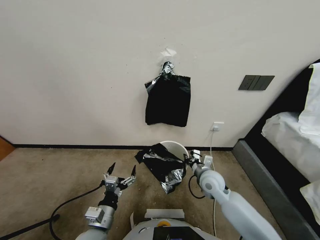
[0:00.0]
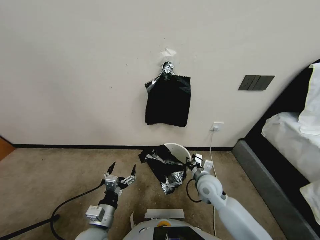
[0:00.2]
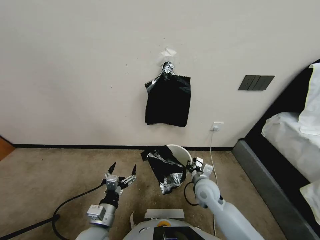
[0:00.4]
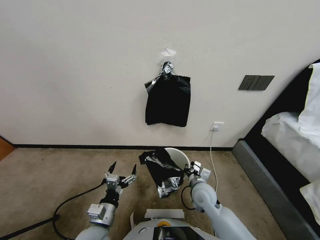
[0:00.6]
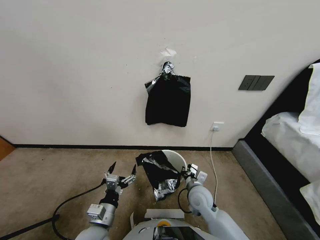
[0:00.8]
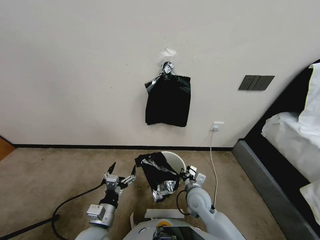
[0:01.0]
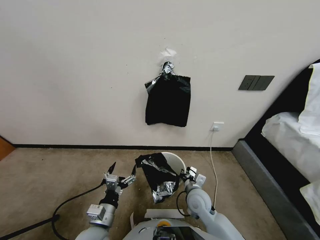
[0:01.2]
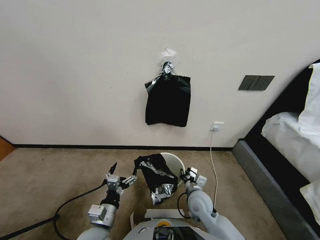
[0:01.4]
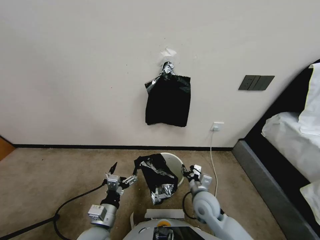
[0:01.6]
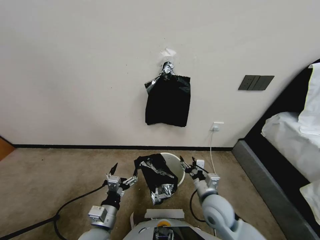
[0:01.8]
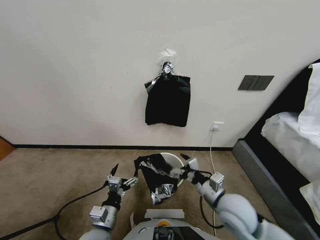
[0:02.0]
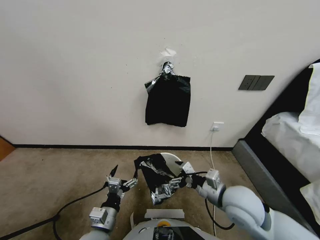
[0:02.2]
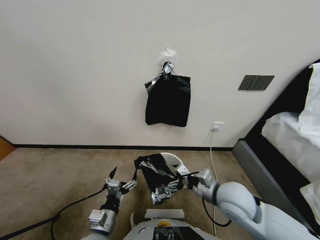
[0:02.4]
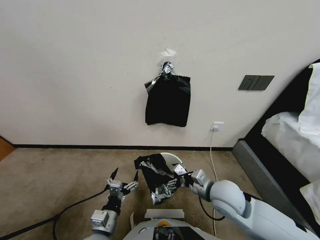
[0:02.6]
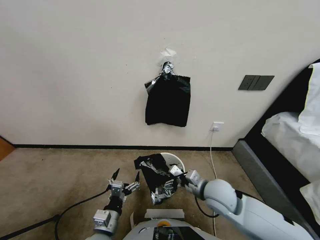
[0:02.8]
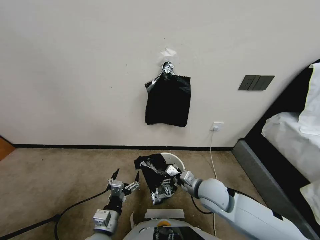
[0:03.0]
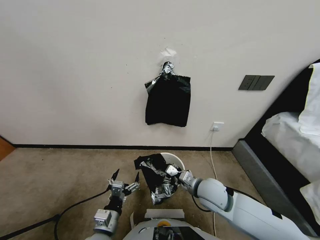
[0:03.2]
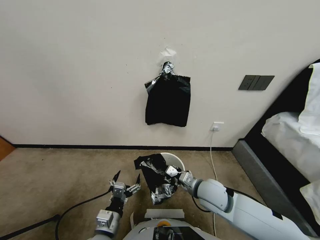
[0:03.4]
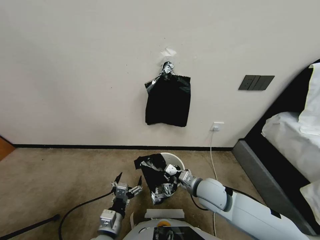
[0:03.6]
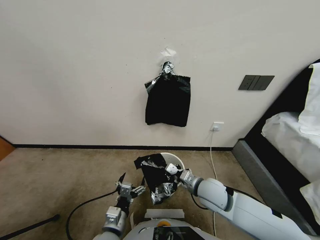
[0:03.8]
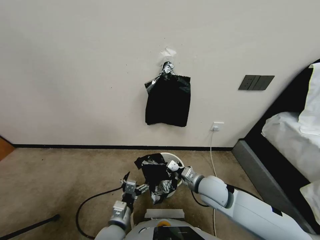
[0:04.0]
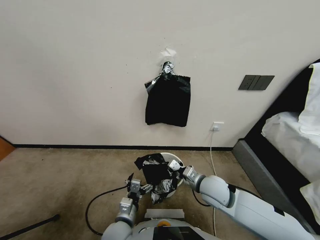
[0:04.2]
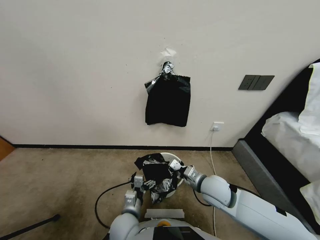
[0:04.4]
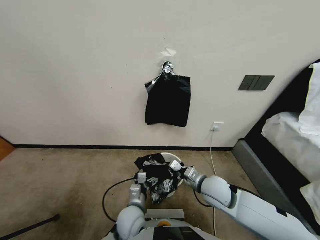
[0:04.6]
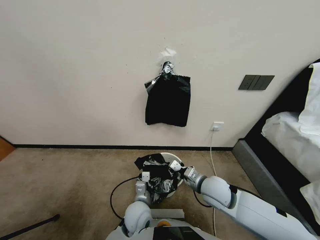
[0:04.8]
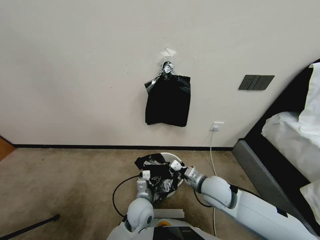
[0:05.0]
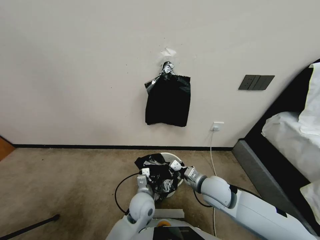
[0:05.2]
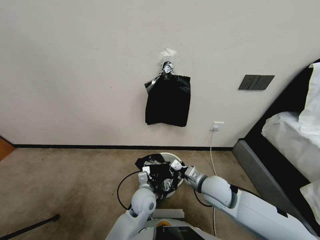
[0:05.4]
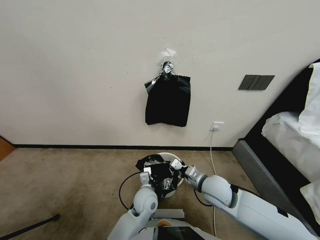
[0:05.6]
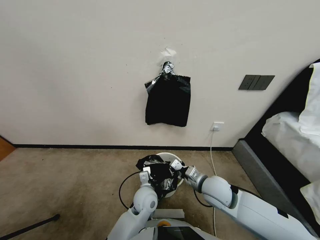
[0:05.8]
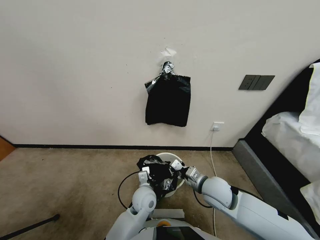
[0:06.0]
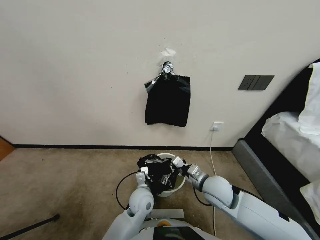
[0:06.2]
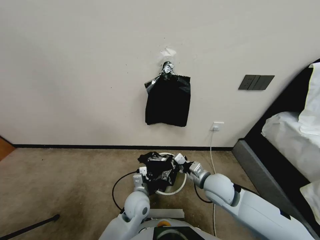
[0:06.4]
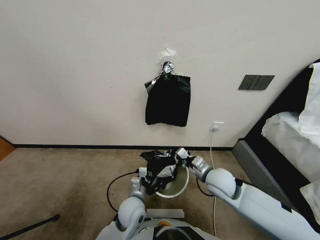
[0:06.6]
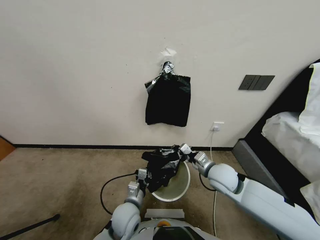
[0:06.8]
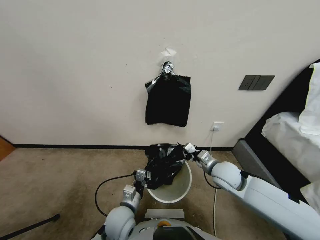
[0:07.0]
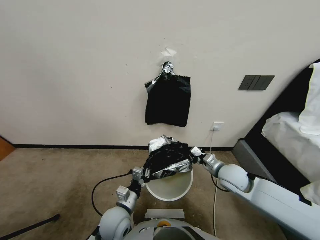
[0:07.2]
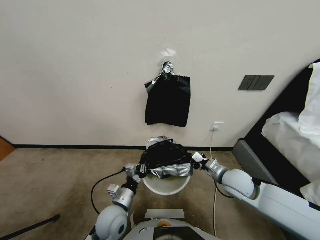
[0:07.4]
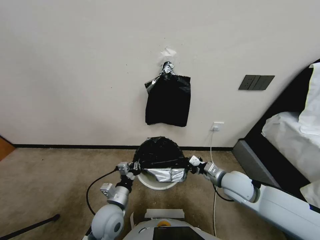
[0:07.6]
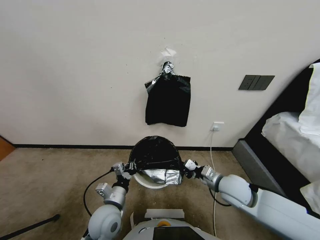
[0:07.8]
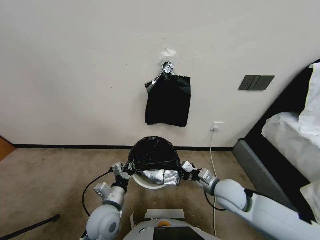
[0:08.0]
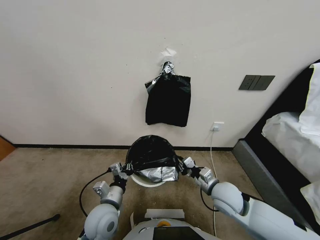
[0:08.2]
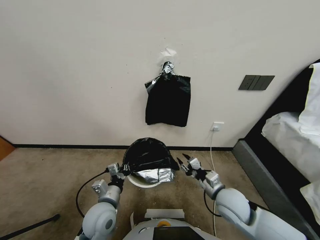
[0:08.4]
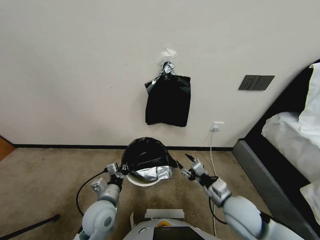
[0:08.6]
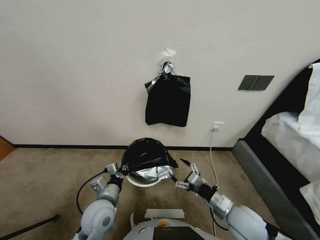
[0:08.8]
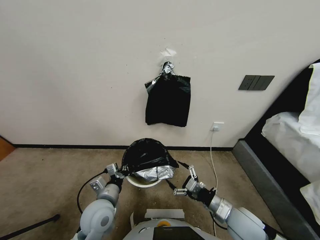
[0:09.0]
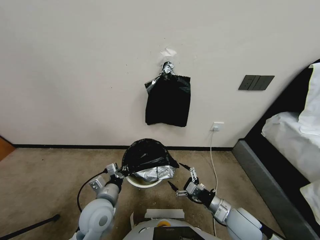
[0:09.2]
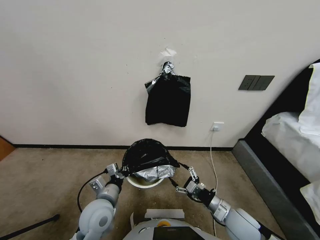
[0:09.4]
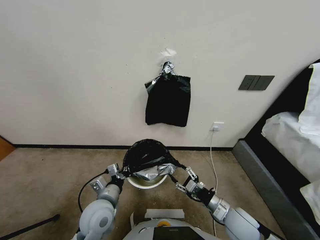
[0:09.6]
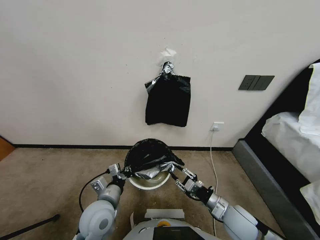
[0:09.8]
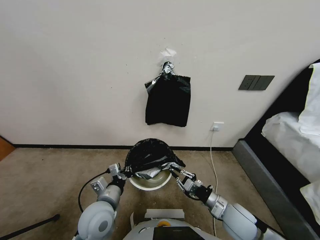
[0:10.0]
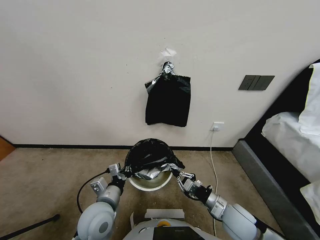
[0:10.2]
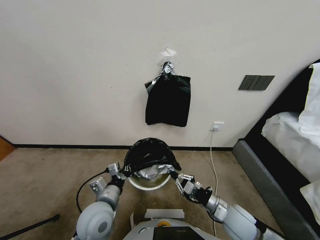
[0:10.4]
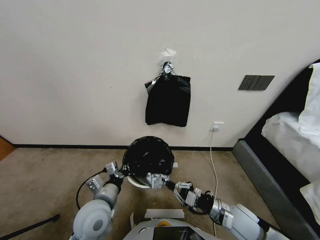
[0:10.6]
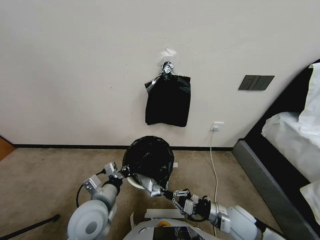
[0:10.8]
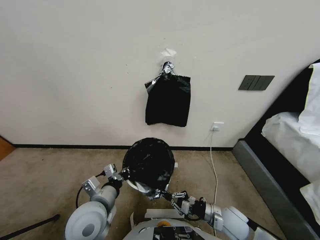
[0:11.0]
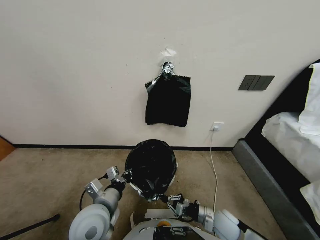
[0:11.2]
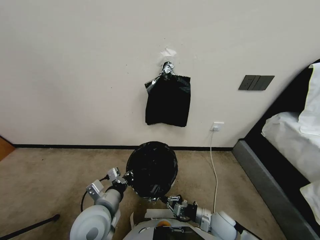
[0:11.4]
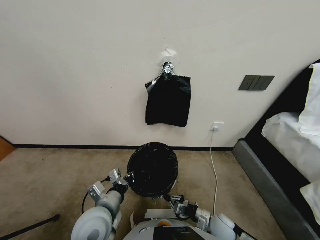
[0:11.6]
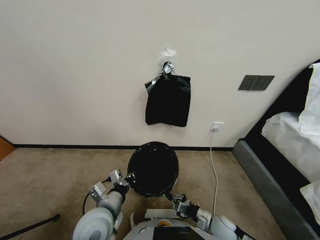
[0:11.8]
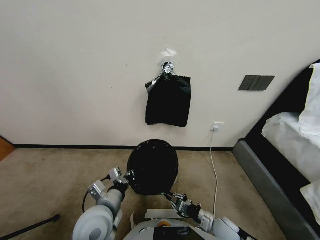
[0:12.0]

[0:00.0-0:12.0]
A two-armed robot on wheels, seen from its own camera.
Task of the whole recording: Place a trash bag onto the trash bin.
0:00.0 to 0:01.6: The right gripper shifts about 10 cm backward, and opens.
0:01.6 to 0:03.0: The right gripper moves upward, some 5 cm.
0:03.0 to 0:04.4: The left gripper is displaced to the right and forward by about 10 cm. Meanwhile the right gripper closes.
0:04.4 to 0:06.0: The left gripper goes approximately 5 cm forward, and closes up.
0:06.0 to 0:07.6: The right gripper heads to the right, covering approximately 5 cm. Meanwhile the left gripper travels to the left and backward by about 15 cm.
0:07.6 to 0:09.0: The right gripper moves backward and downward, some 10 cm, and opens its fingers.
0:09.0 to 0:10.4: The right gripper closes up.
0:10.4 to 0:12.0: The right gripper shifts about 10 cm downward.

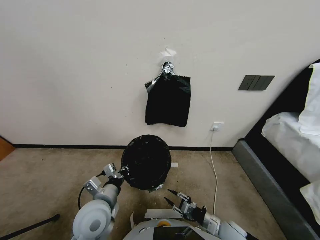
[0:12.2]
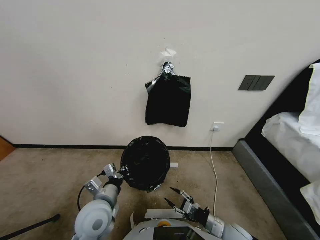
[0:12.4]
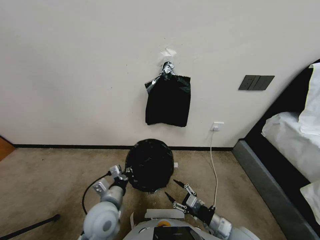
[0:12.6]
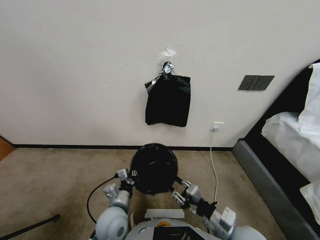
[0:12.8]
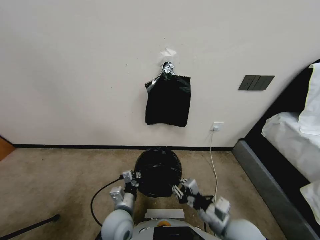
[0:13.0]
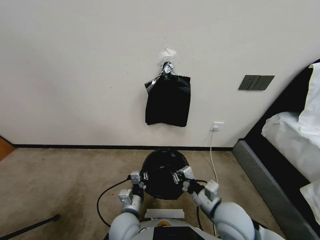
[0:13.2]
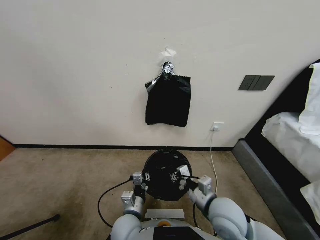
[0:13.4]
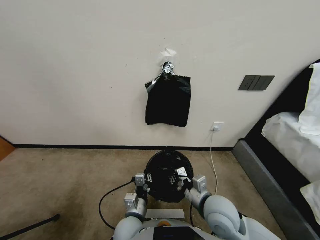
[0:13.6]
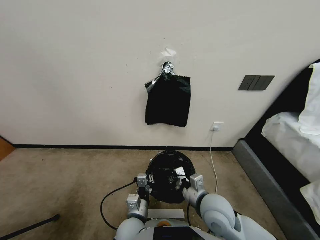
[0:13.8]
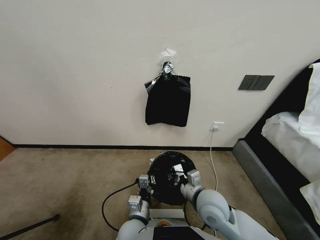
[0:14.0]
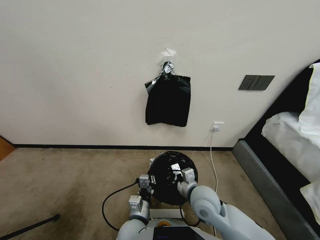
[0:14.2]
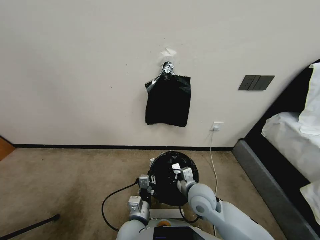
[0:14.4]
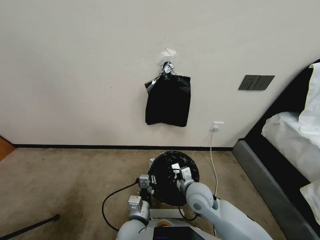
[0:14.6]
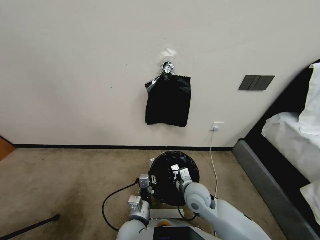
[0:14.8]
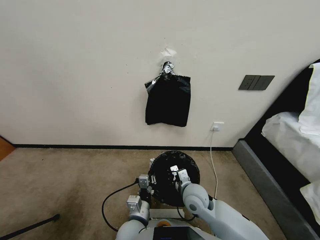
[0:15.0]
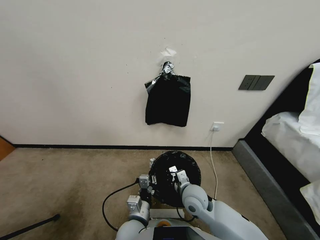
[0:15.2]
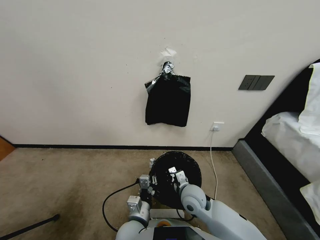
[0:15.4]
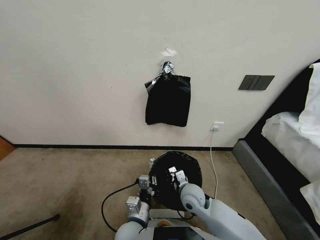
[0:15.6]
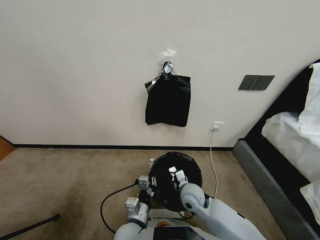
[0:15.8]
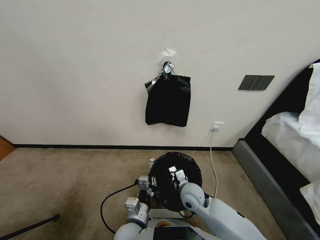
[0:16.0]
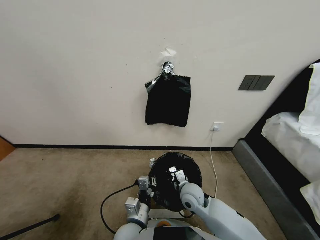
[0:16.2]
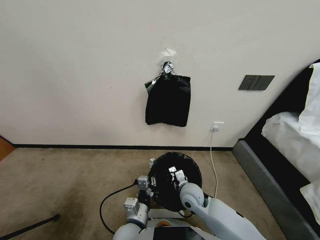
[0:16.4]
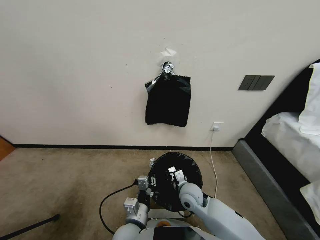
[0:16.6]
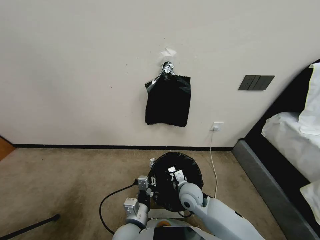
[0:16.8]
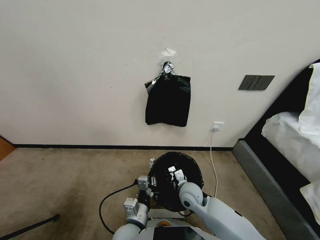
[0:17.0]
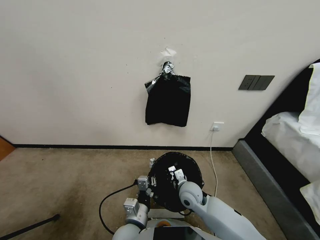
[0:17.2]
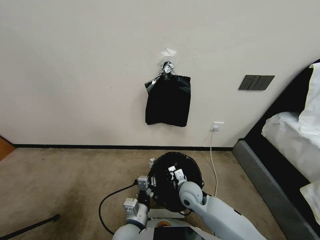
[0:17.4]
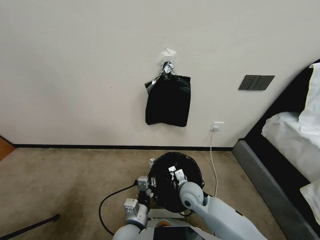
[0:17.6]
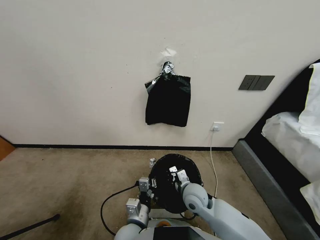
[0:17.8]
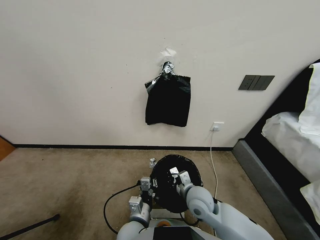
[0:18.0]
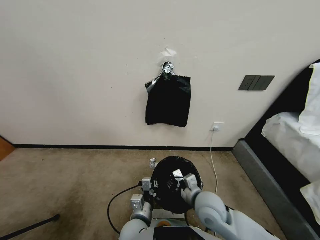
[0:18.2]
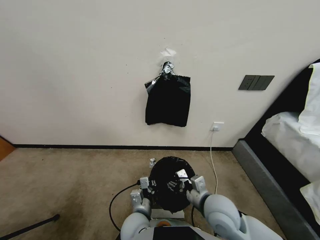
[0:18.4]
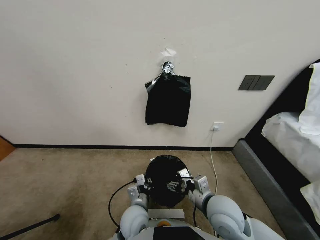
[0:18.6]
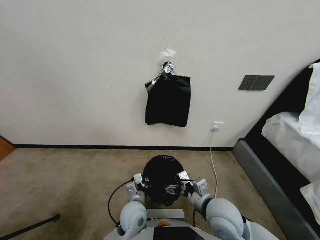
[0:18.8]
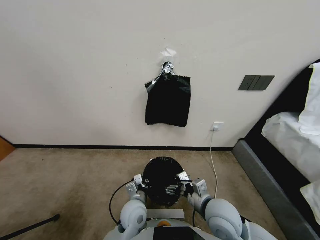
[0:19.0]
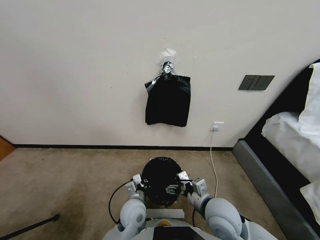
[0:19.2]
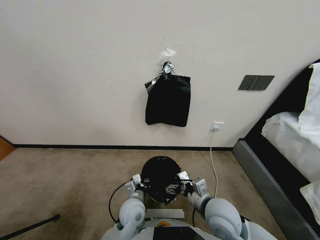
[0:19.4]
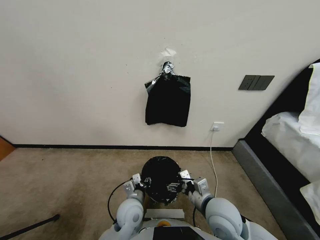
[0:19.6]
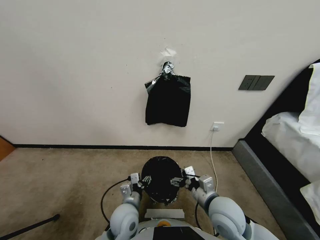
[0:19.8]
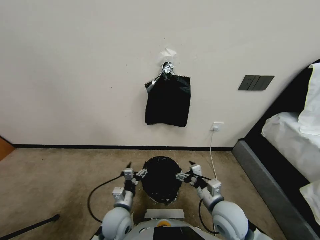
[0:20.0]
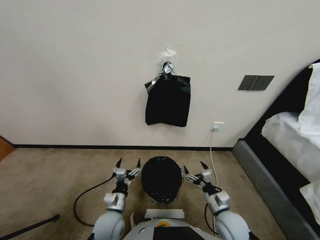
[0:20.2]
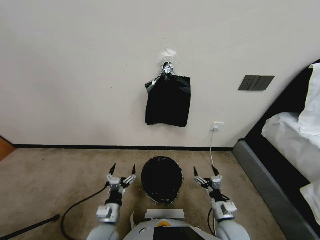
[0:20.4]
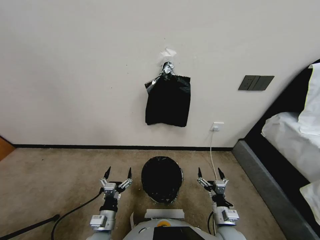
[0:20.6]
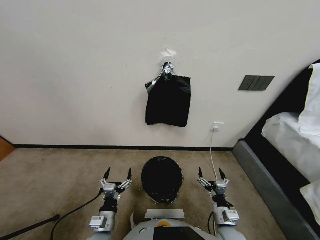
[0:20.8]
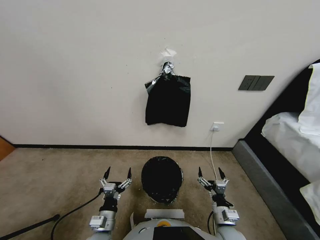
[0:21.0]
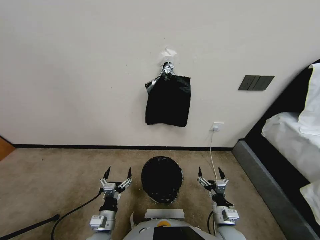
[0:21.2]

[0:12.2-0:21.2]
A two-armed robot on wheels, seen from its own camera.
Task of the whole recording: Place a trash bag onto the trash bin.
0:12.2 to 0:13.8: The left gripper travels to the right and downward by approximately 15 cm. Meanwhile the right gripper moves upward, to the left and forward, some 20 cm, and closes its fingers.
0:13.8 to 0:15.2: The right gripper is displaced downward by roughly 5 cm.
0:15.2 to 0:16.6: The grippers make only small movements.
0:16.6 to 0:18.2: The right gripper moves upward and backward, approximately 10 cm, and opens.
0:18.2 to 0:19.8: The right gripper opens its fingers; the left gripper goes about 5 cm to the left, and opens up.
0:19.8 to 0:21.2: The left gripper is displaced backward and to the left by about 10 cm. Meanwhile the right gripper travels downward and backward by approximately 15 cm.
